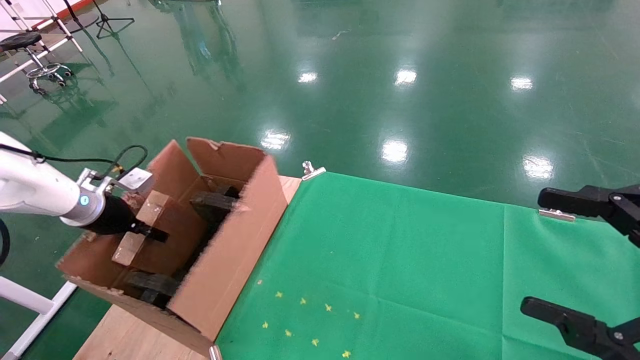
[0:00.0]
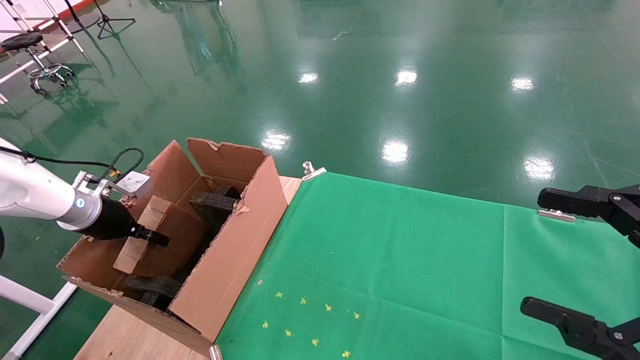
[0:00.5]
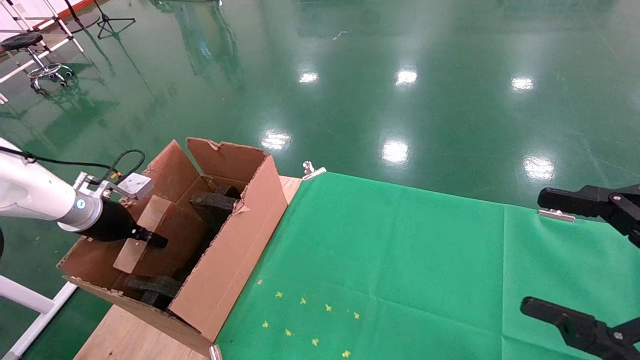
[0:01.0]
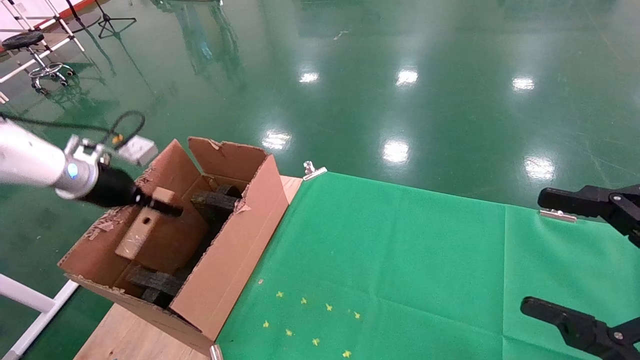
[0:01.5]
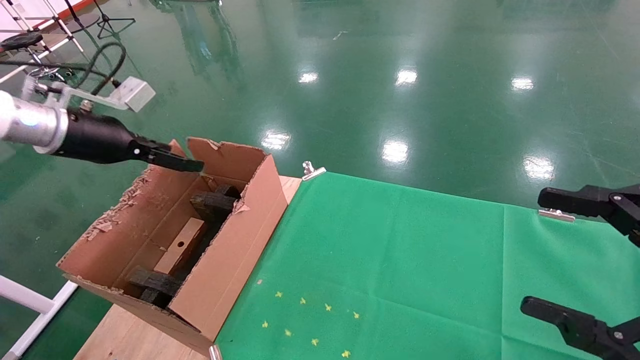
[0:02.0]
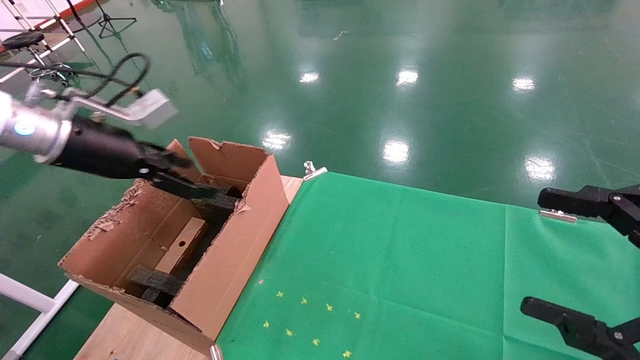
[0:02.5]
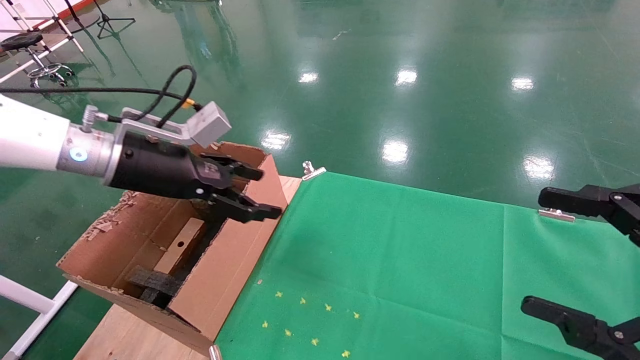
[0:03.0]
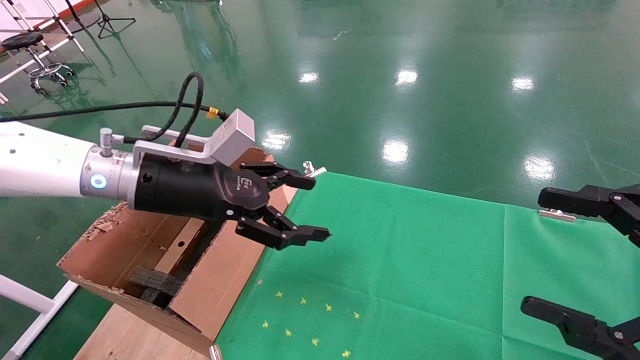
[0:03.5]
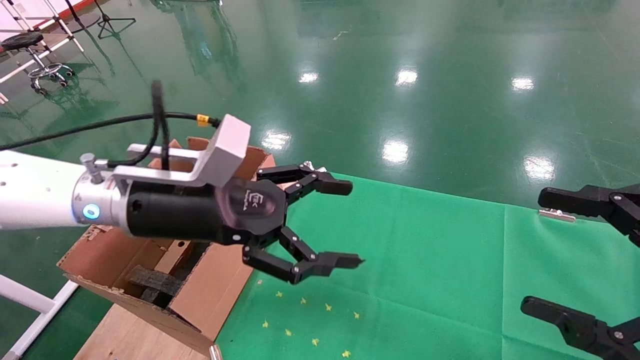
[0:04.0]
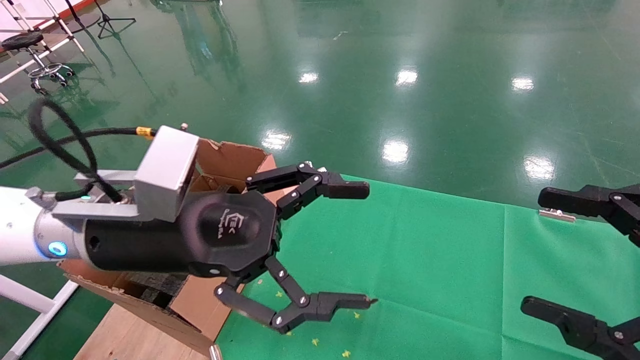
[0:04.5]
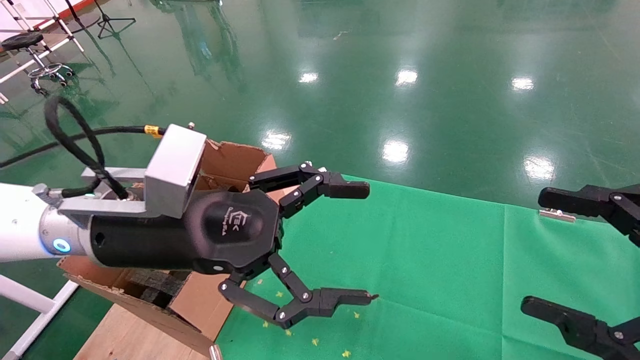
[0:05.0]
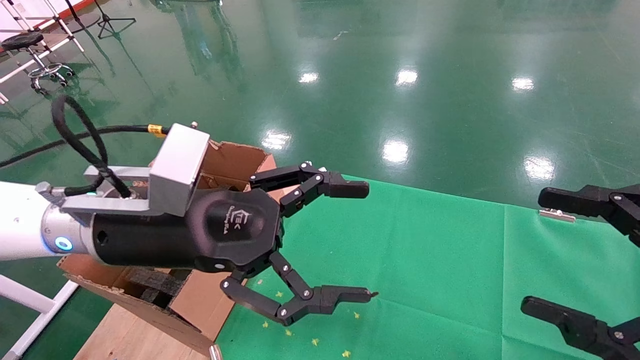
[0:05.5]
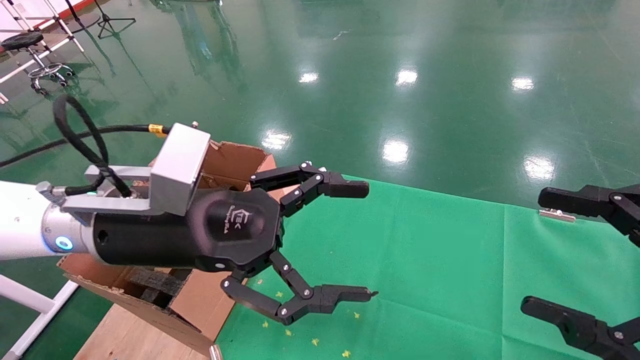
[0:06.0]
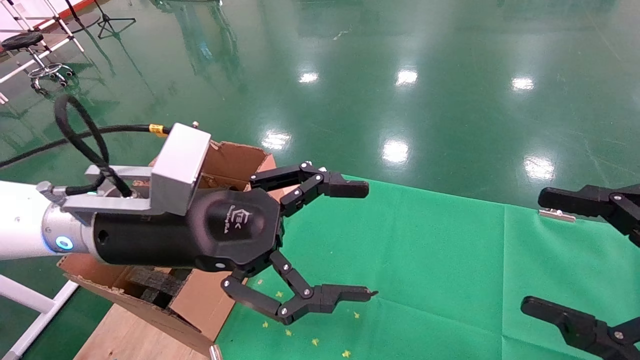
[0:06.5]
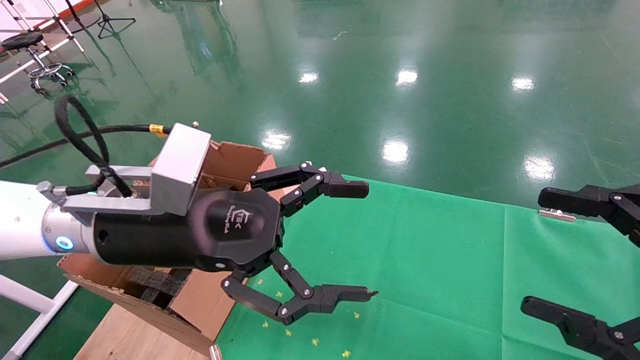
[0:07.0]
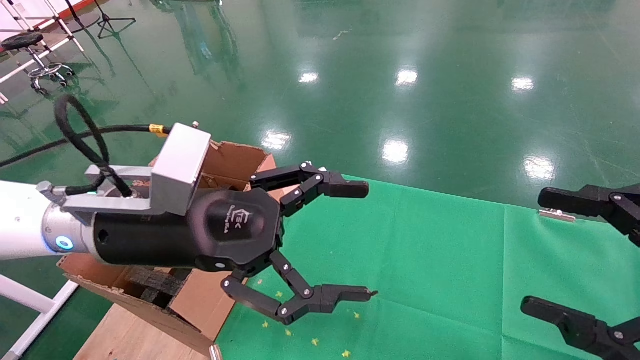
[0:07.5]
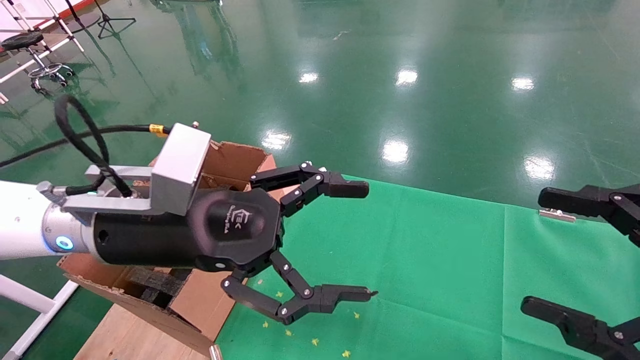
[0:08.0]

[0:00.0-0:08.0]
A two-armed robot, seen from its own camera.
Task of the whole recording: using a robotic arm to pick up a cardboard box and palace it the carton.
0:00.0 to 0:02.0: The left gripper shifts roughly 15 cm upward and to the right, and opens up.
0:02.0 to 0:04.0: The left gripper goes about 20 cm to the right.
0:04.0 to 0:06.0: There are only small adjustments of the grippers.
0:06.0 to 0:08.0: Both grippers stay put.
